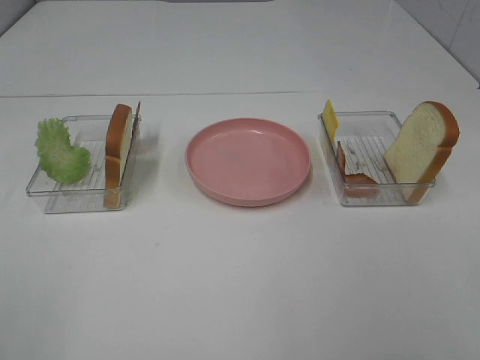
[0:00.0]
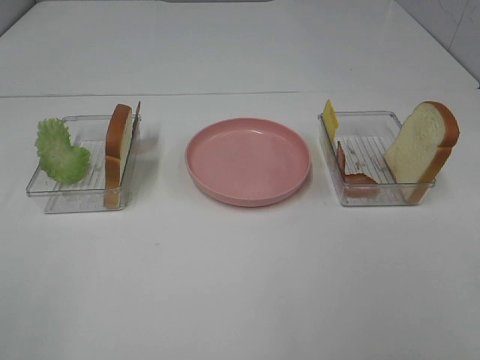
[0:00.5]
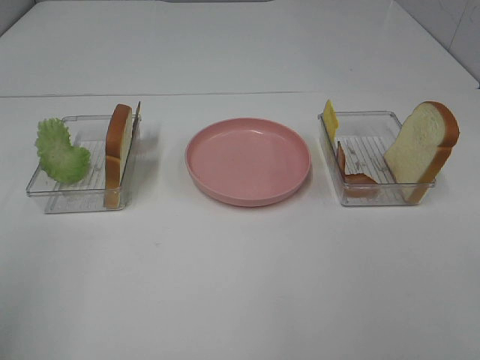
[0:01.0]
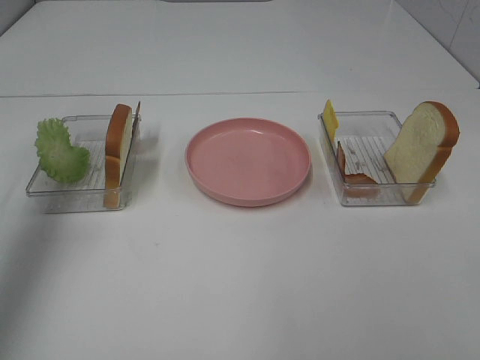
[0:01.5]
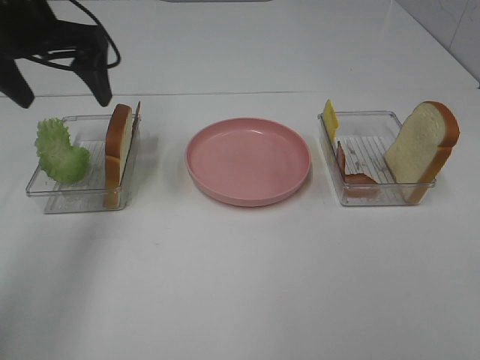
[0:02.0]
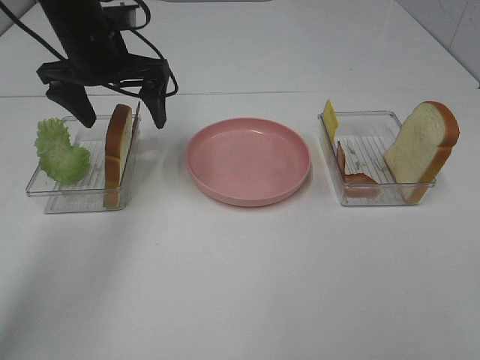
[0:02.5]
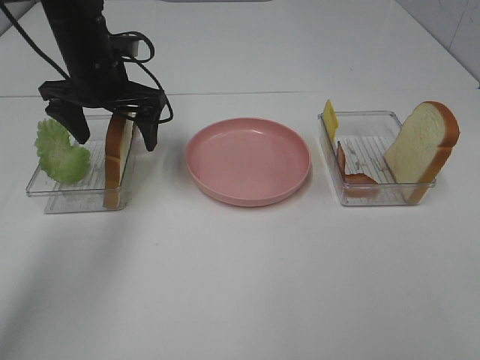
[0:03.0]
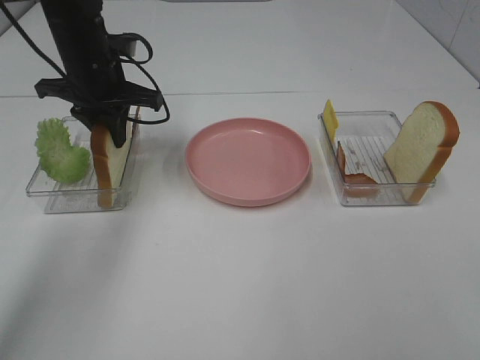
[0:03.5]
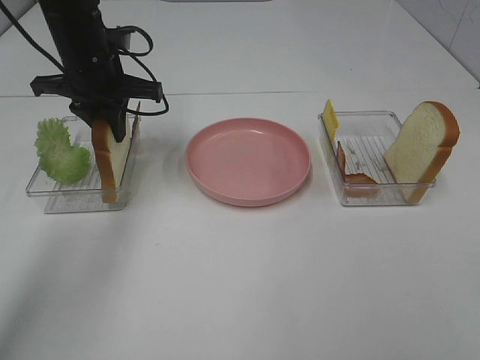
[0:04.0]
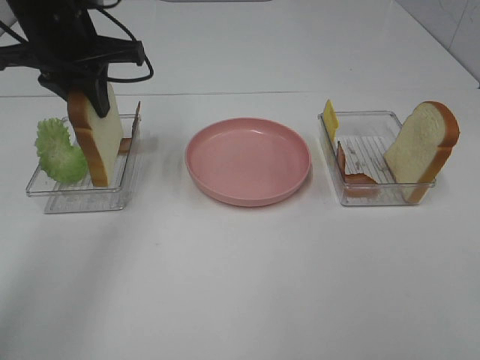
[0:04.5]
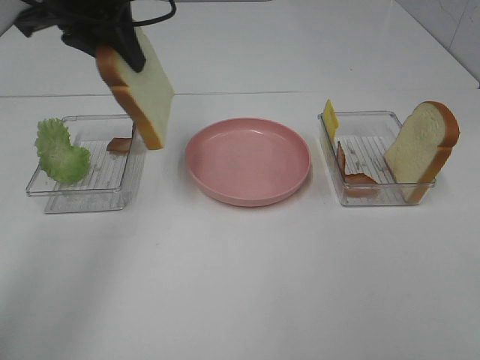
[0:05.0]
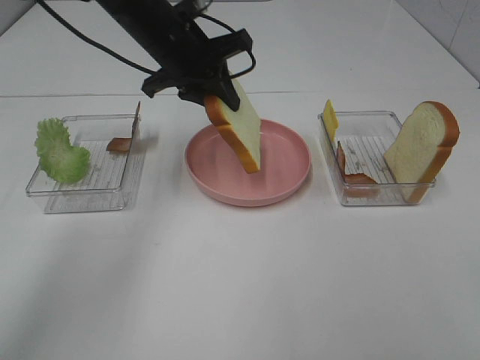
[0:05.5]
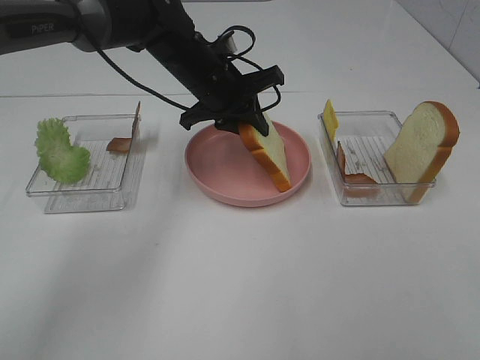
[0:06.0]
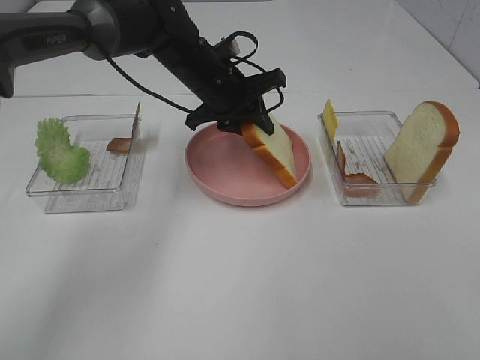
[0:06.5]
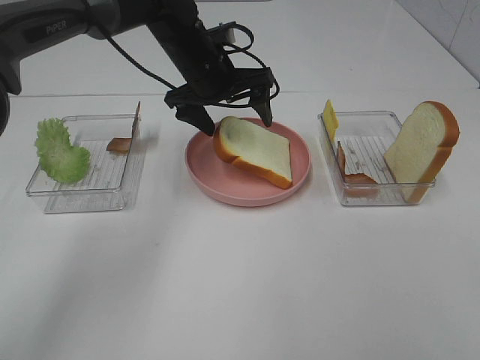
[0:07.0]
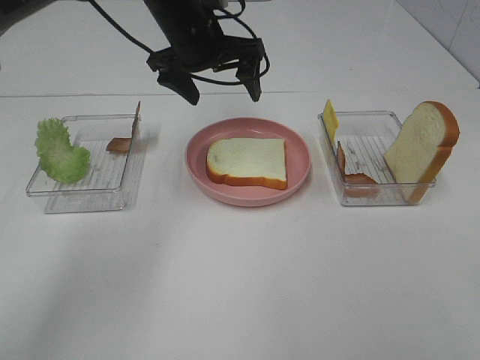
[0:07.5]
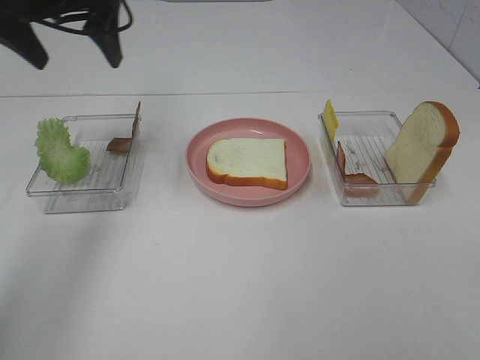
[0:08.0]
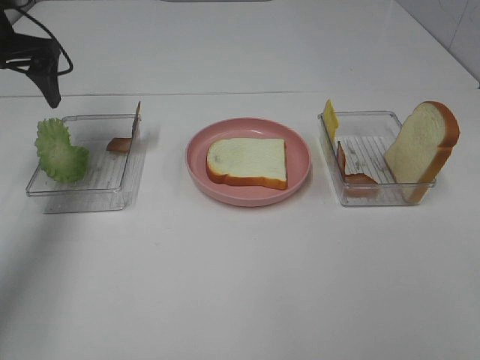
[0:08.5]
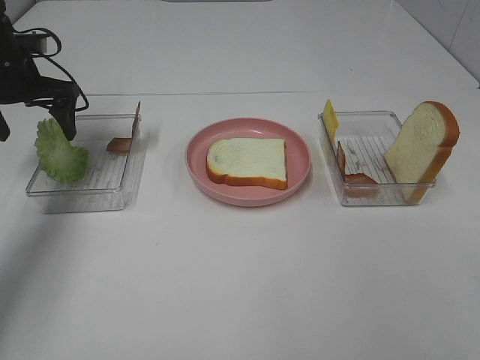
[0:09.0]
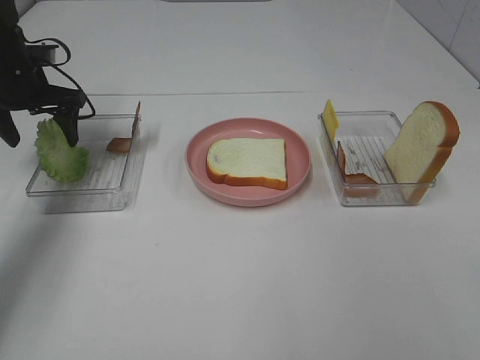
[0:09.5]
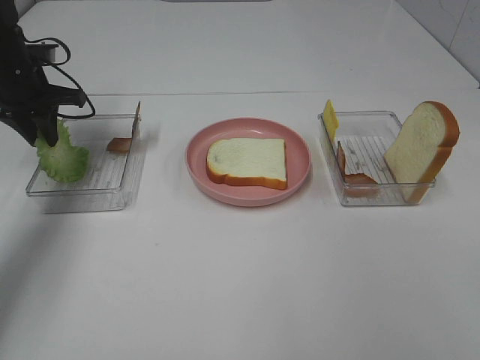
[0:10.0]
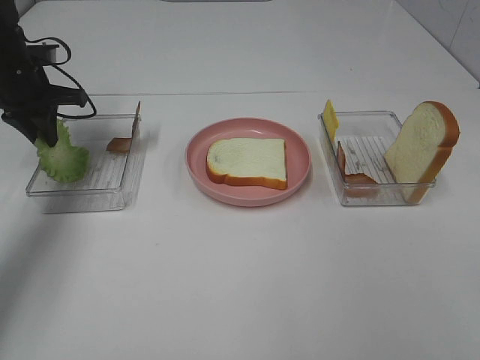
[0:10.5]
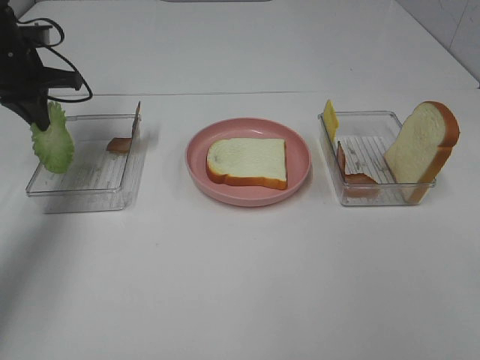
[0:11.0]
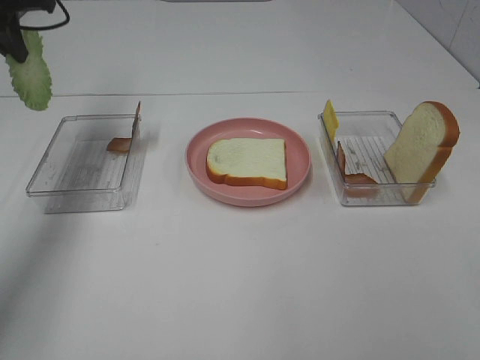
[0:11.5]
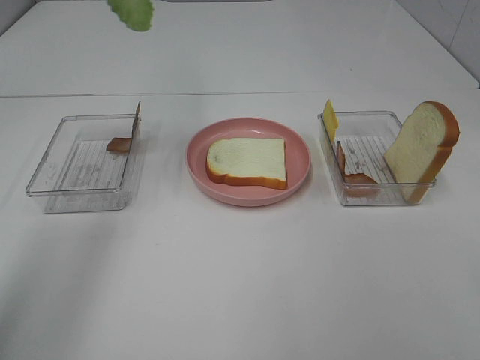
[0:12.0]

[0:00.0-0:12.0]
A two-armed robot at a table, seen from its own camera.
Task of the whole recording: Make sandwiches.
Step, 0:00.0 to 0:03.0: Left hand:grab the bread slice.
Step, 0:03.5 to 0:07.0: Left hand:place the bread slice on the plate.
Step, 0:07.5 to 0:10.5: Left hand:grab the lettuce slice.
0:00.0 to 0:02.0: The left gripper heads forward, covering roughly 40 cm.
0:02.0 to 0:04.0: The left gripper moves downward, approximately 10 cm, and closes its fingers.
0:04.0 to 0:06.0: The left gripper shifts roughly 15 cm to the right, and goes upward and returns, about 10 cm each way.
0:06.0 to 0:08.0: The left gripper moves to the left and upward, roughly 25 cm, and opens.
0:08.0 to 0:10.0: The left gripper goes about 20 cm downward, to the left and forward, and closes.
0:10.0 to 0:12.0: The left gripper moves upward and to the right, approximately 25 cm.

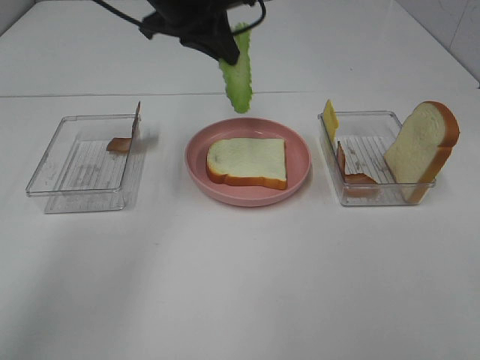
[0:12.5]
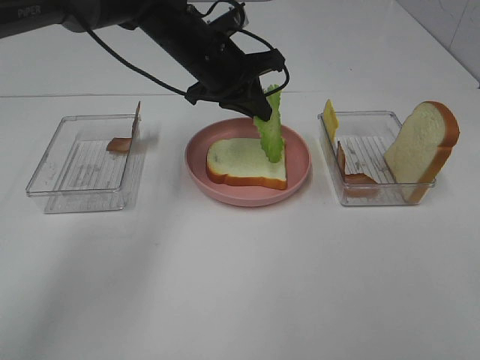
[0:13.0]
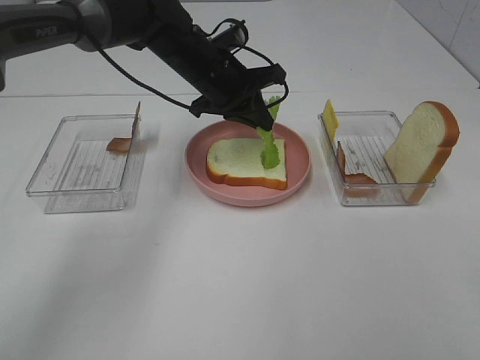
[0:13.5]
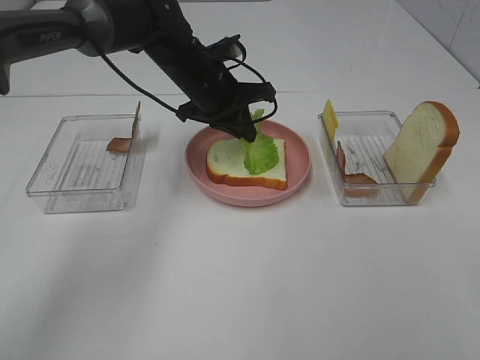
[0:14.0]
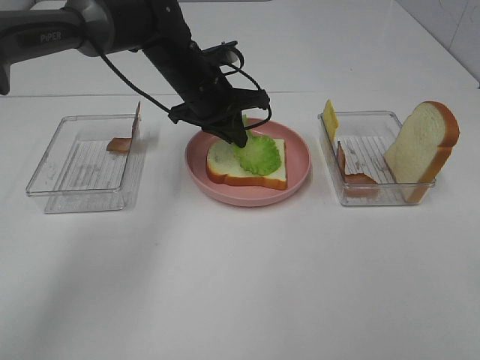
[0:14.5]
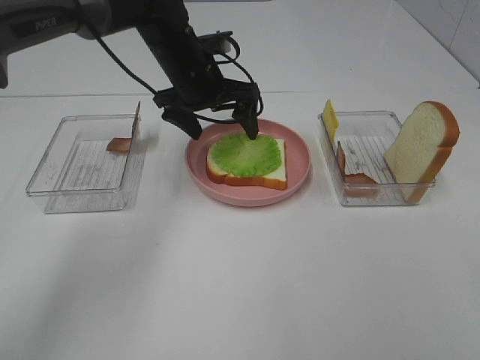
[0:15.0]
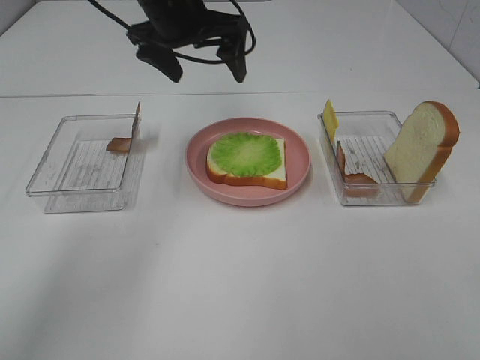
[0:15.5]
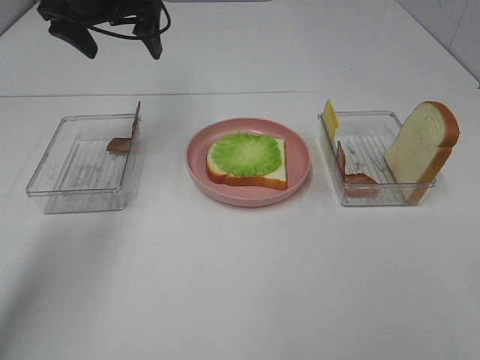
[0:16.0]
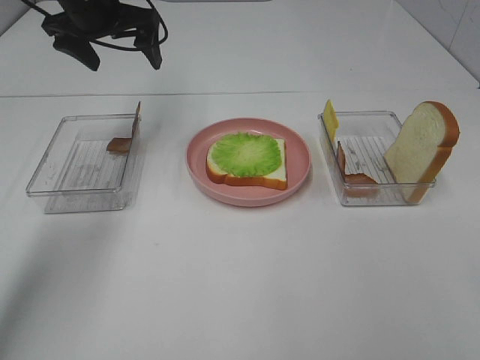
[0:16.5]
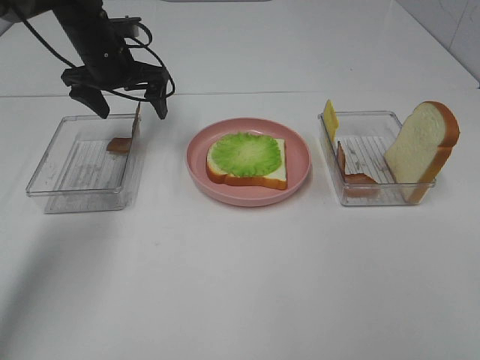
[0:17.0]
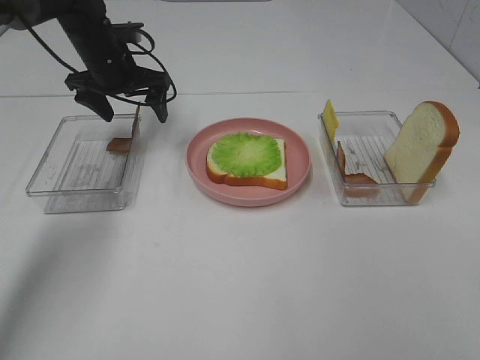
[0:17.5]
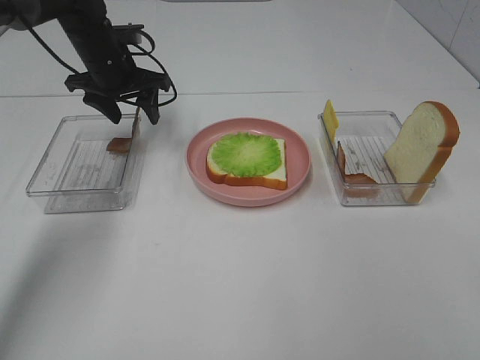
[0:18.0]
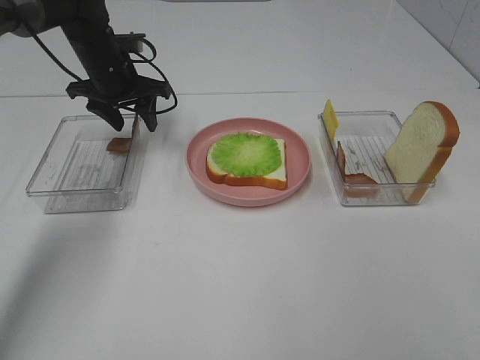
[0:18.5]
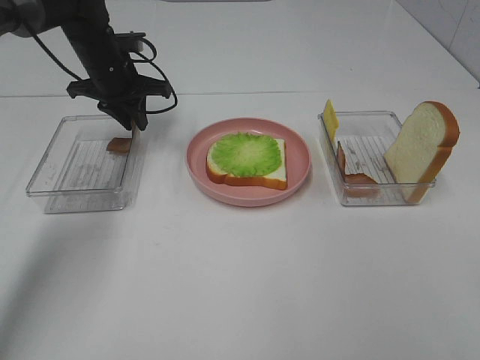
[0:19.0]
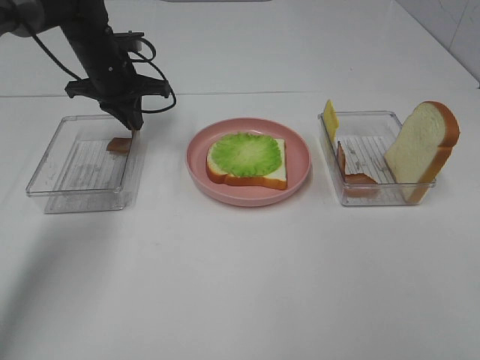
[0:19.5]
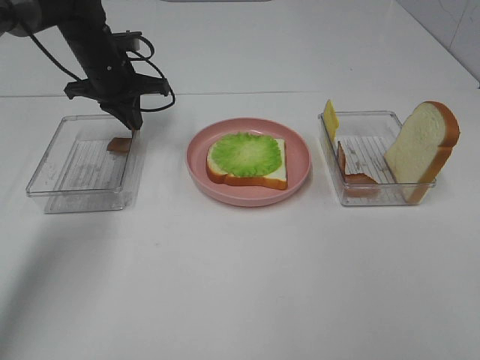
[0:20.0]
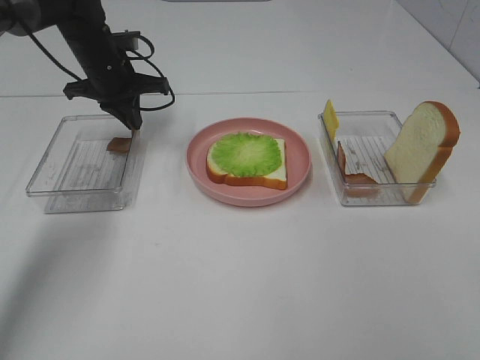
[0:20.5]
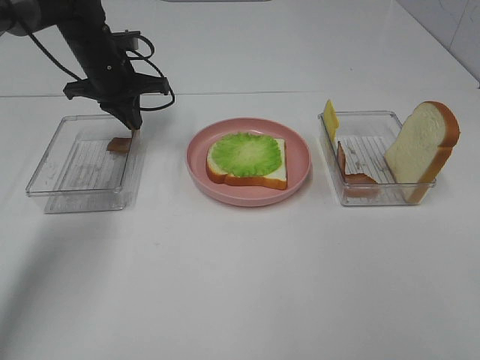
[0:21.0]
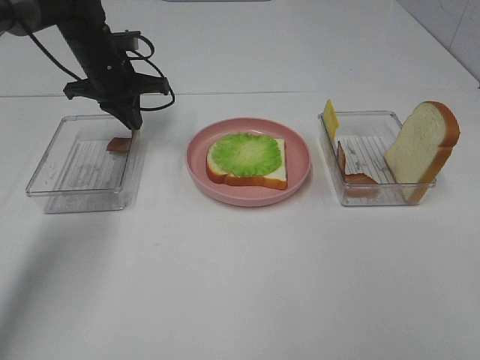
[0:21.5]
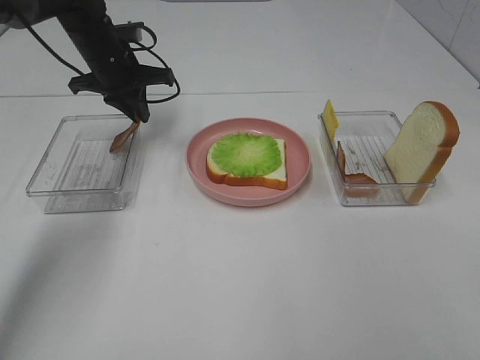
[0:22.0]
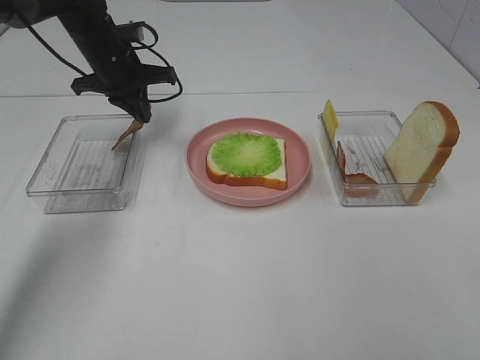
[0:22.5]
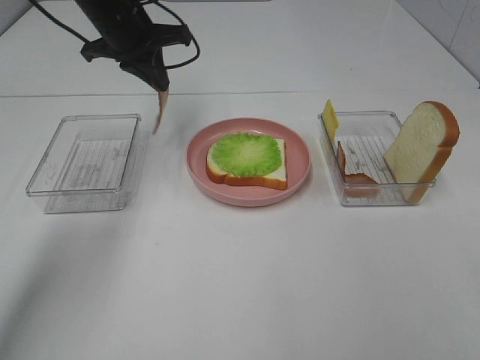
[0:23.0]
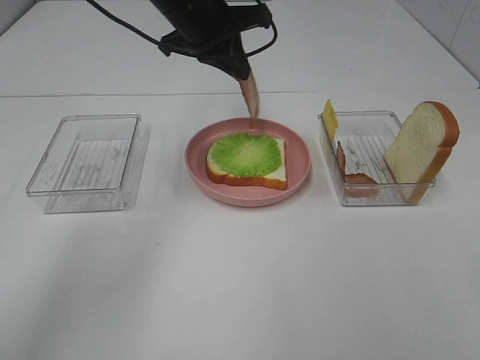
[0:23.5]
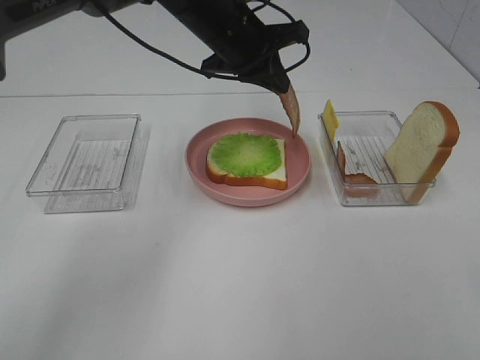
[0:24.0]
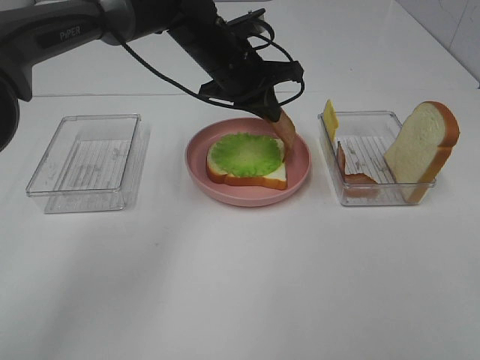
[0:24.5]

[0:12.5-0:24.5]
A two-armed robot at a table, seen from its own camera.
Task of the whole recording: Make sandwiches.
Step, 0:12.5 to 0:15.0: Left hand:place the lettuce slice on the bread slice.
Step, 0:15.5 to 0:20.5: Left hand:grab the bacon.
0:12.5 to 0:14.5: The left gripper moves downward, approximately 15 cm.
0:14.5 to 0:16.5: The left gripper shifts about 15 cm to the left and upward, and opens.
0:16.5 to 0:18.5: The left gripper moves downward, about 10 cm, and closes its fingers.
0:18.5 to 0:20.5: The left gripper closes up.
0:20.5 to 0:22.5: The two grippers keep their place.
0:22.5 to 0:24.5: The left gripper goes approximately 15 cm to the right.

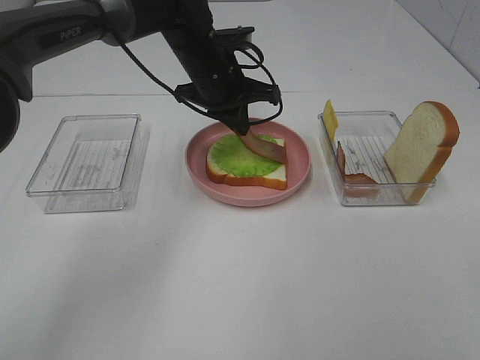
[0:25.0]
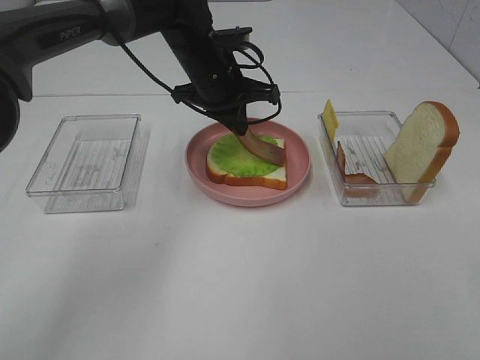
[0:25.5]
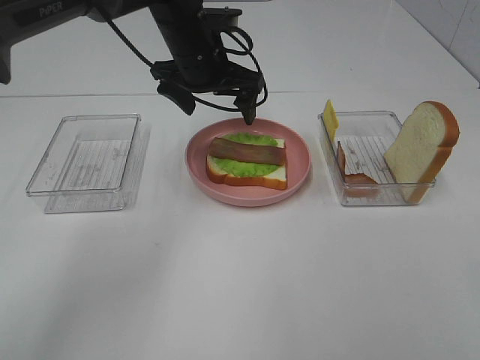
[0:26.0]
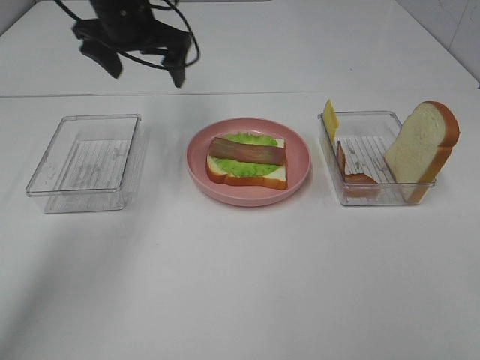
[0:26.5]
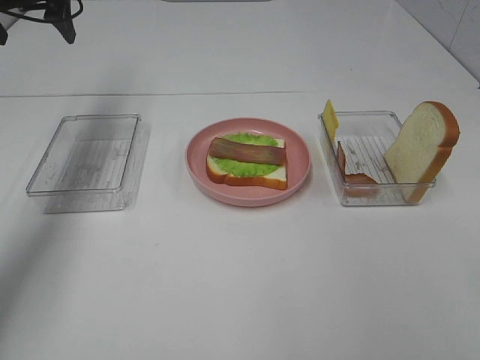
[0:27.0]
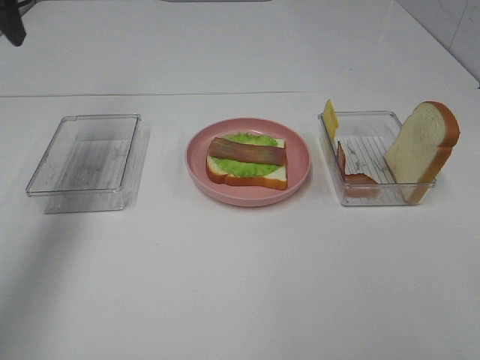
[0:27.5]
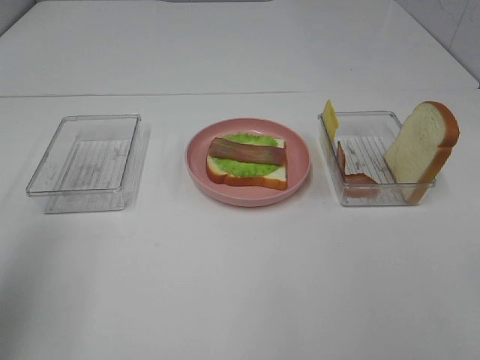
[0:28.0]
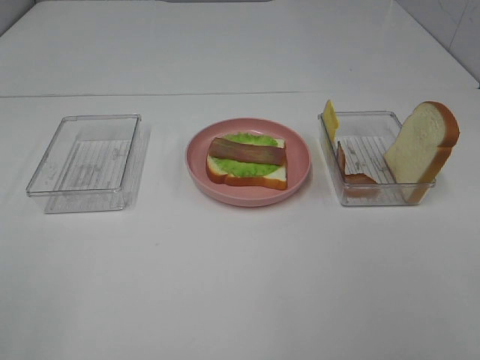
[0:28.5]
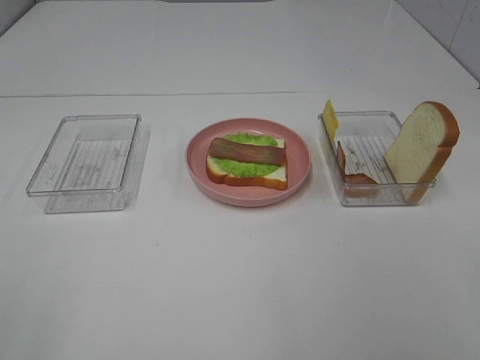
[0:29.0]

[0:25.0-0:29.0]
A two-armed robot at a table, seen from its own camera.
Task of the whole recording: Make sandwiches.
0:25.0 to 0:27.0: The left gripper shifts roughly 30 cm to the left and upward, and opens up.
0:27.0 to 0:29.0: The left gripper is displaced backward by roughly 50 cm.
